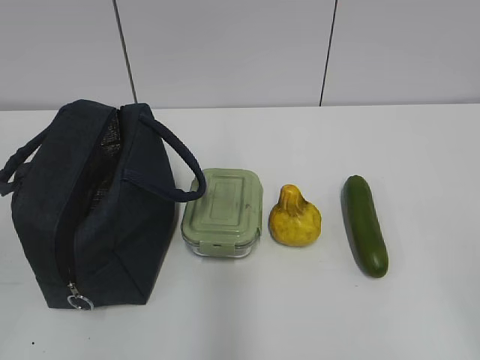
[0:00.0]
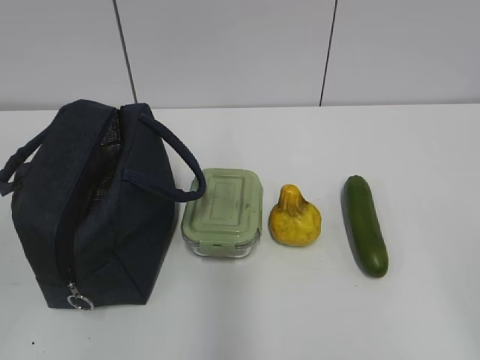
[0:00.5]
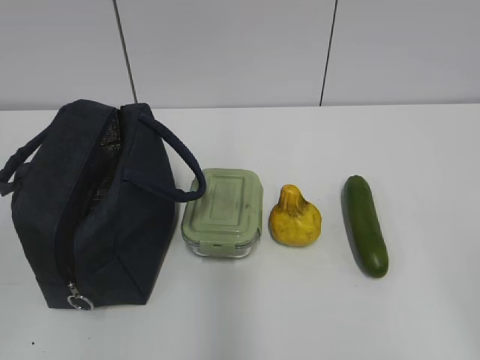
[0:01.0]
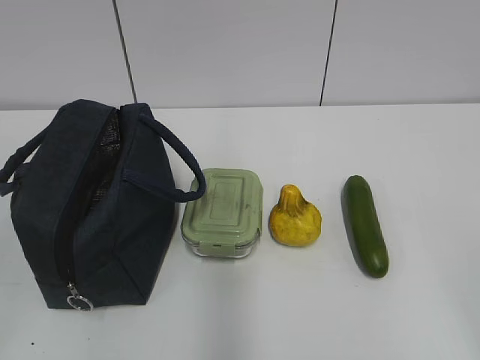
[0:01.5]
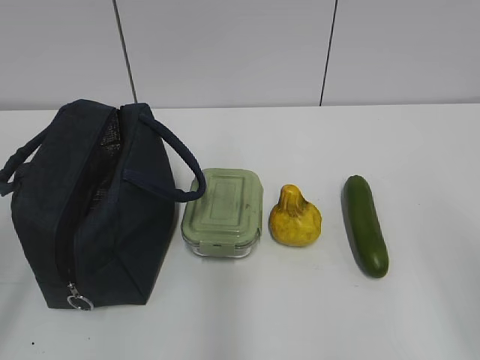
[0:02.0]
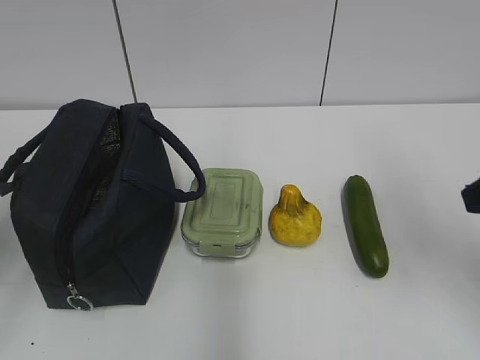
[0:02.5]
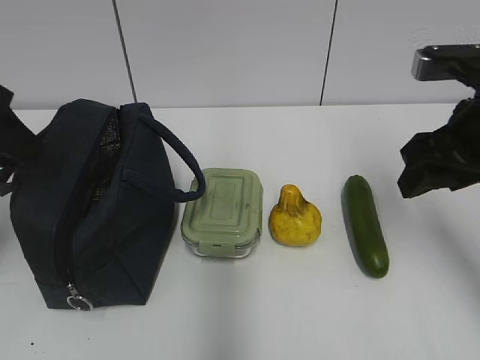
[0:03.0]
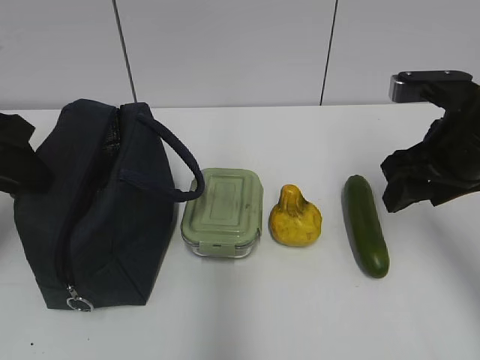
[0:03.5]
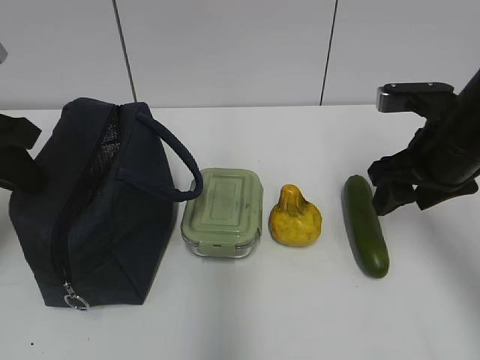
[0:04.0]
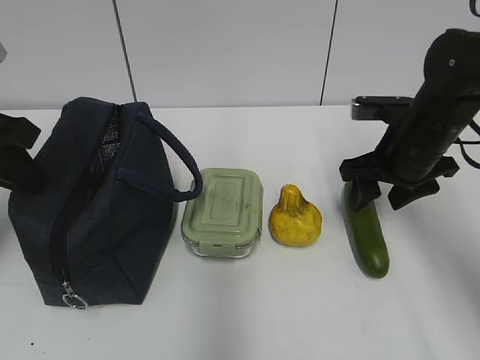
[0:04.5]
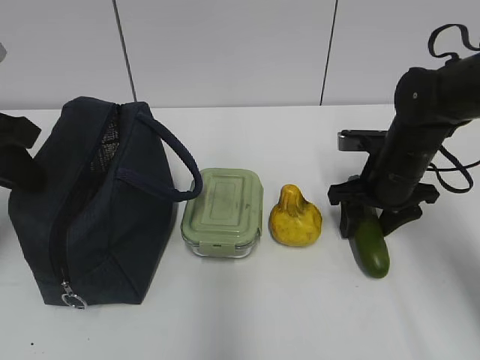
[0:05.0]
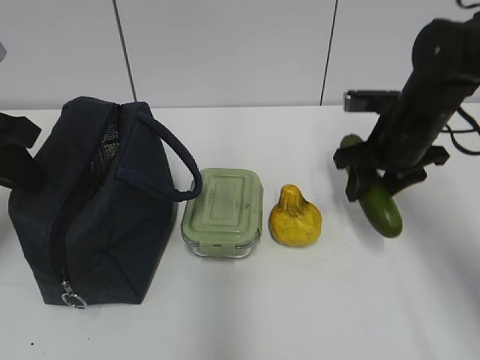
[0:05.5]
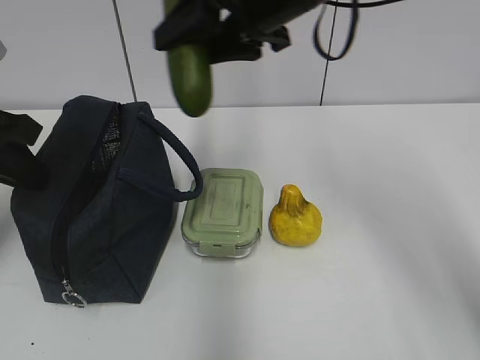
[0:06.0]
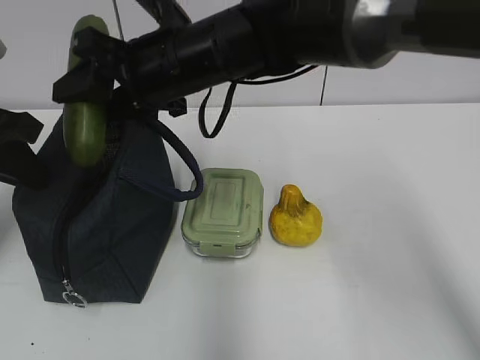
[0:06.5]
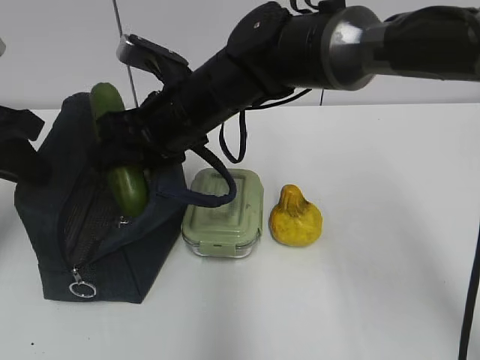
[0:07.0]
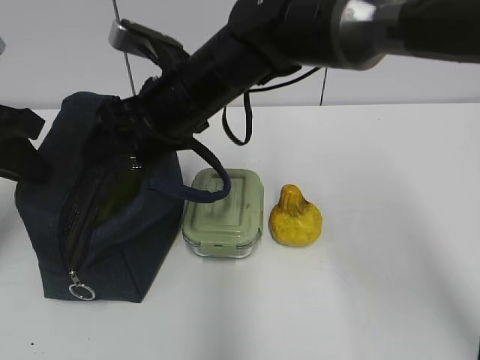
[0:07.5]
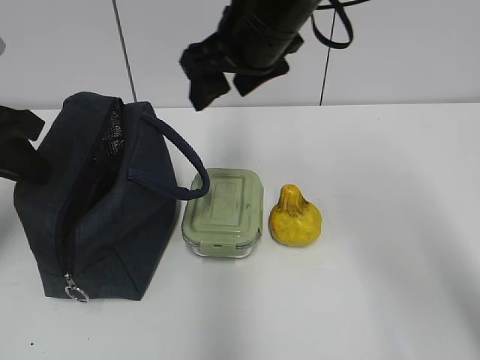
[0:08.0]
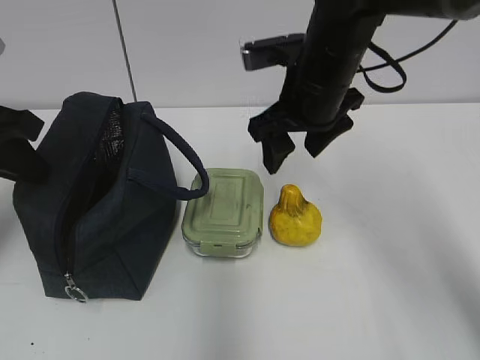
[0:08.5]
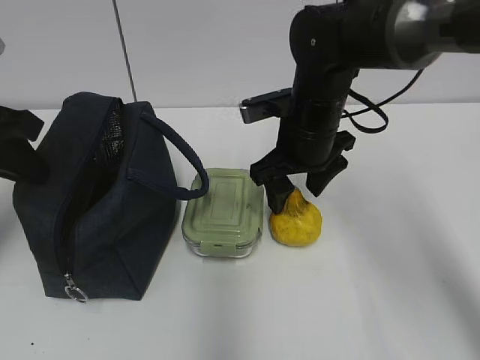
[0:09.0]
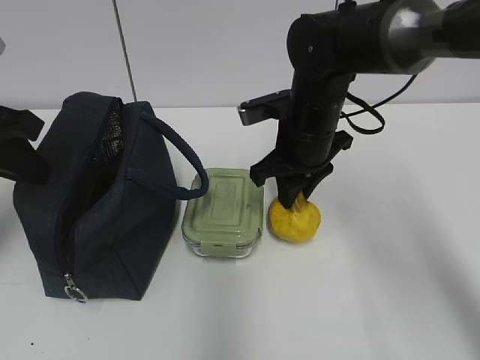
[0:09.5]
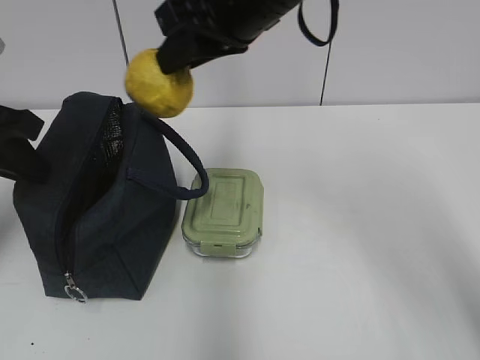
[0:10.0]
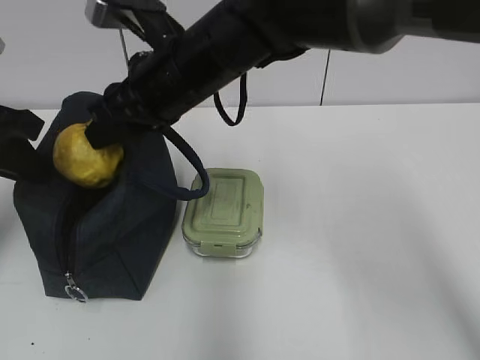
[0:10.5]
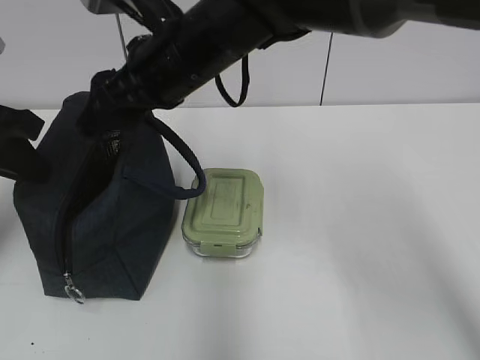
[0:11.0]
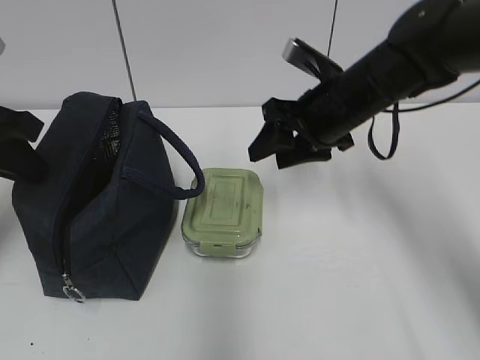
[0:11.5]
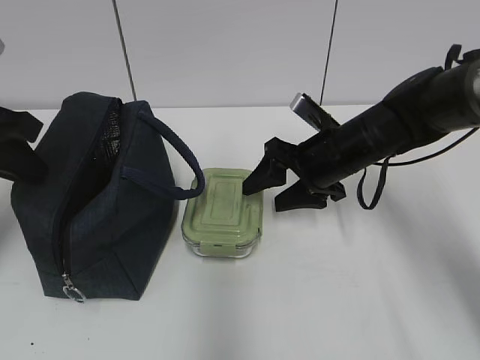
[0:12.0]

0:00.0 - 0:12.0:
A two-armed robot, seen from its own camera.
Step, 0:00.0 - 0:05.0: Grab the cucumber with your right hand.
Step, 0:07.0 - 0:07.5: Place it into the bag with your right hand.
Step, 0:08.0 - 0:09.0: Grab the pear with your right hand.
Step, 0:09.5 - 0:10.5: Place it into the bag with your right hand.
0:02.0 - 0:04.0: Both grippers travel together forward, approximately 25 cm. The left gripper closes up.
0:04.0 - 0:06.0: The right gripper heads to the left and upward, covering approximately 20 cm.
0:06.0 - 0:08.0: The right gripper goes downward and returns, some 10 cm each way.
0:08.0 - 0:10.0: The right gripper travels downward and back again, roughly 15 cm each way, and closes.
0:10.0 - 0:12.0: The right gripper is displaced downward and to the right by some 25 cm, and opens up.

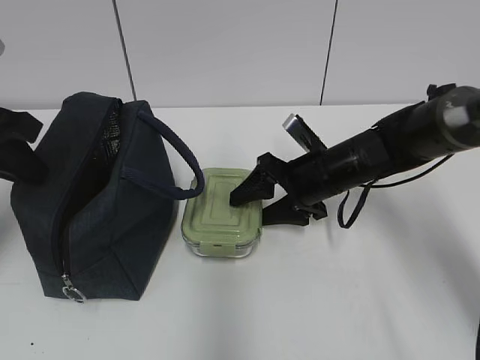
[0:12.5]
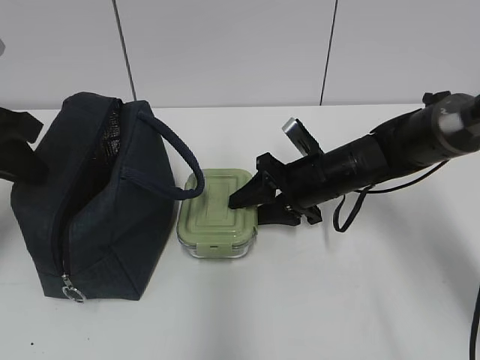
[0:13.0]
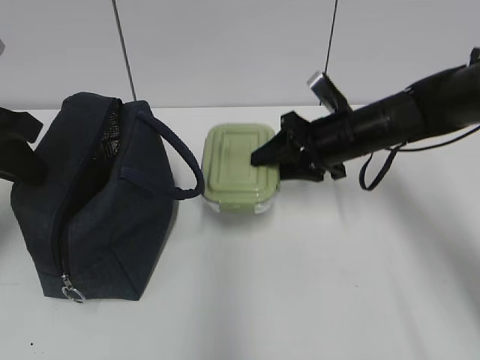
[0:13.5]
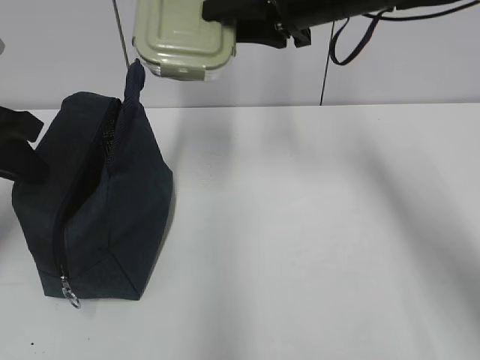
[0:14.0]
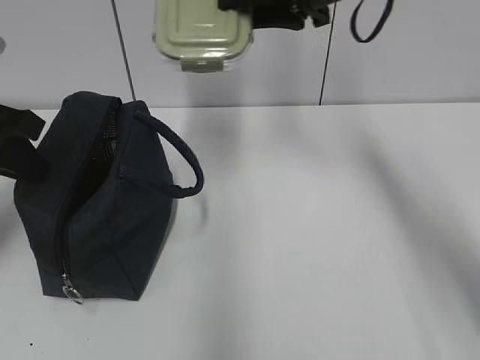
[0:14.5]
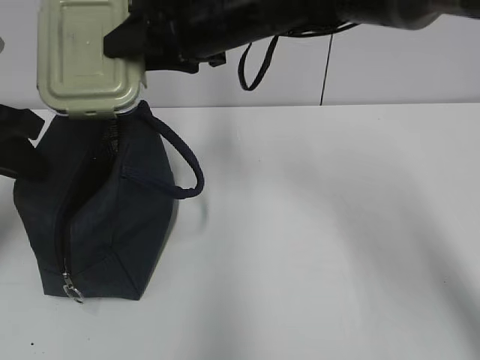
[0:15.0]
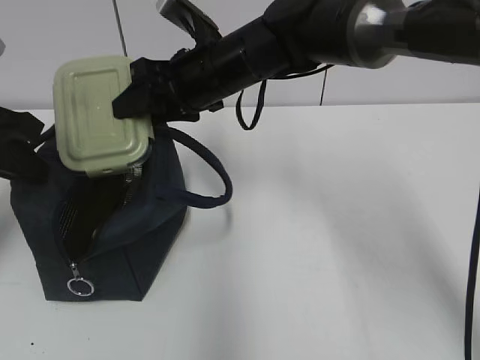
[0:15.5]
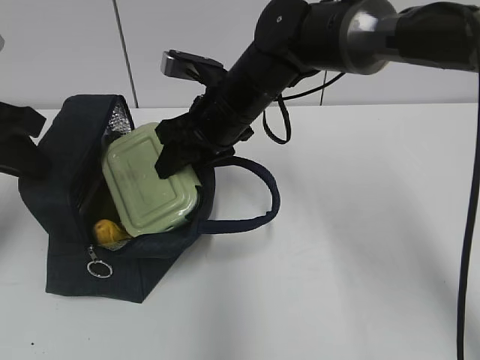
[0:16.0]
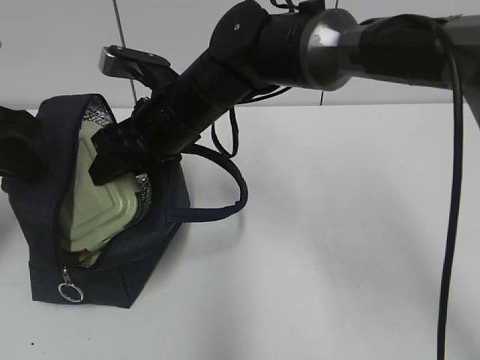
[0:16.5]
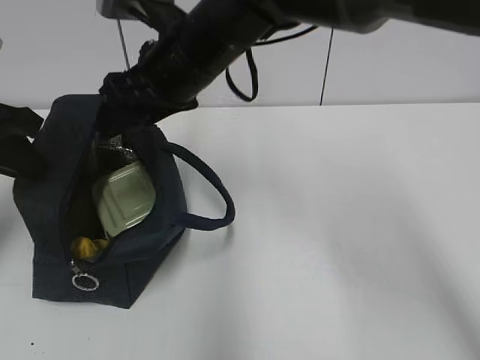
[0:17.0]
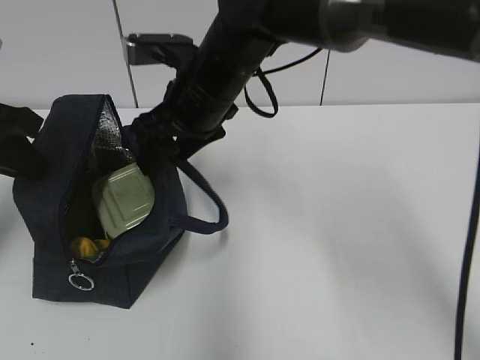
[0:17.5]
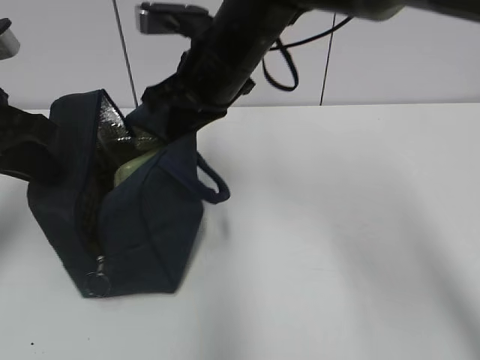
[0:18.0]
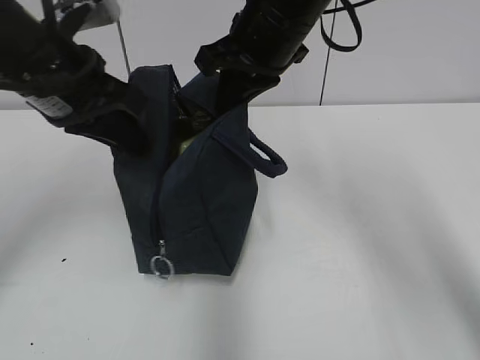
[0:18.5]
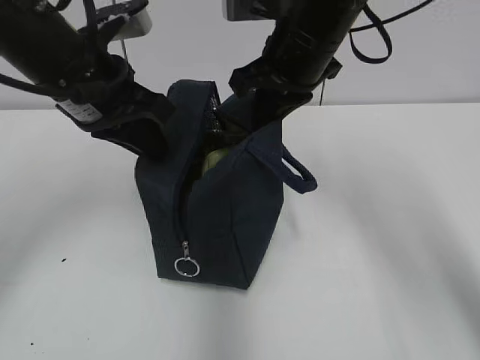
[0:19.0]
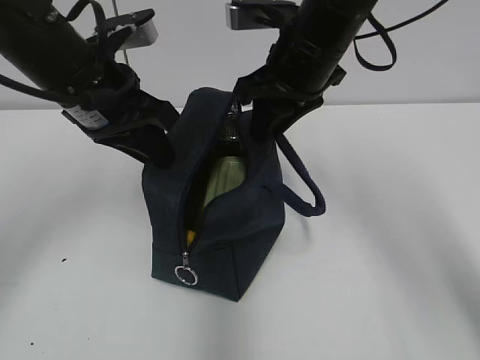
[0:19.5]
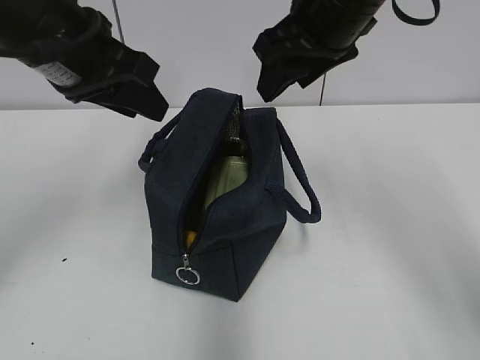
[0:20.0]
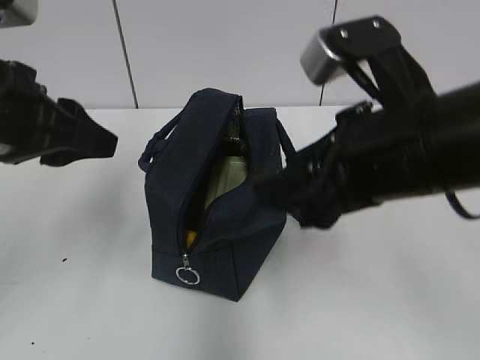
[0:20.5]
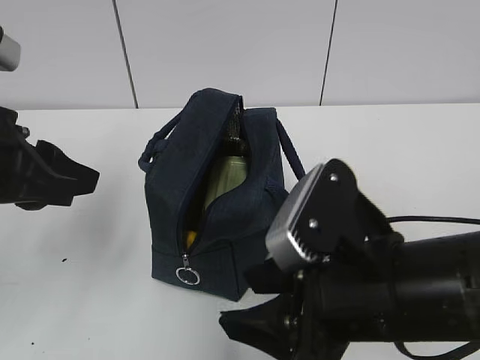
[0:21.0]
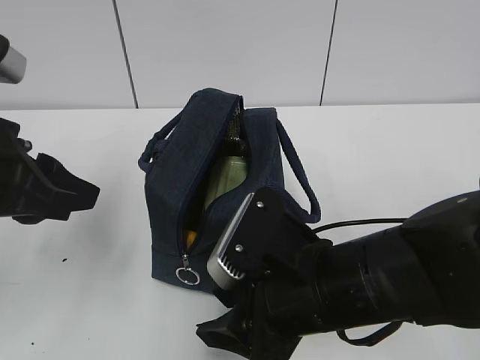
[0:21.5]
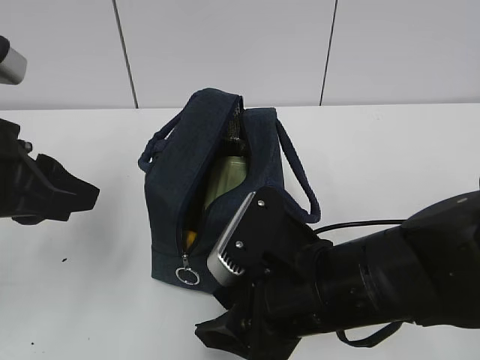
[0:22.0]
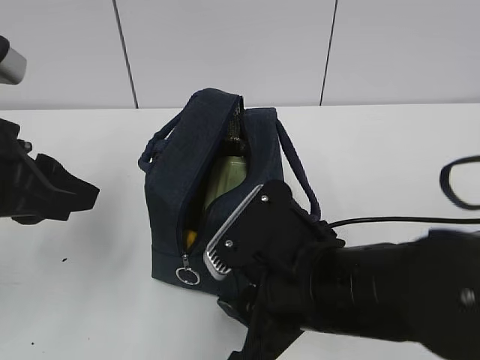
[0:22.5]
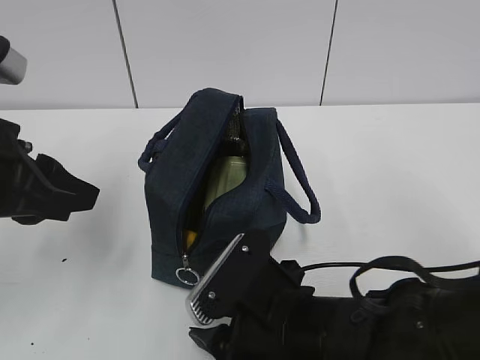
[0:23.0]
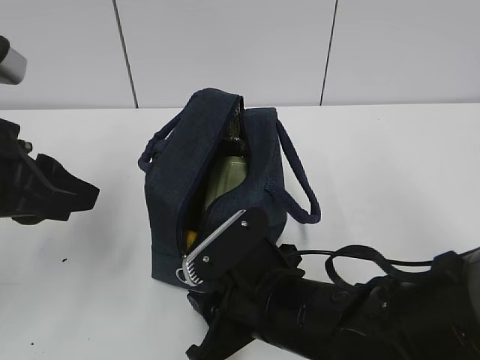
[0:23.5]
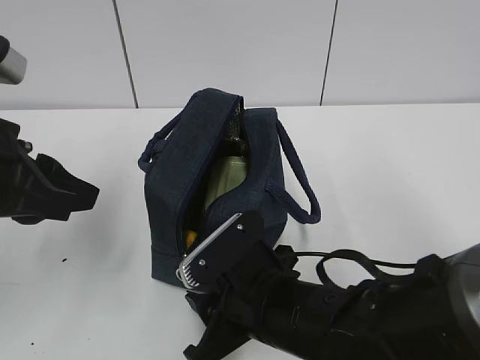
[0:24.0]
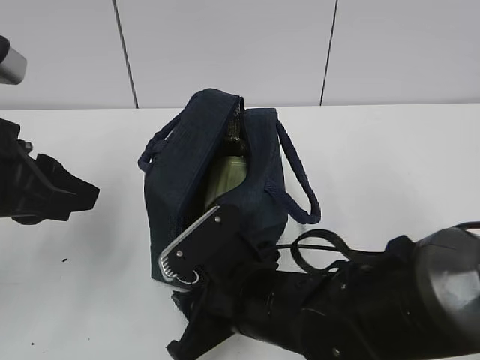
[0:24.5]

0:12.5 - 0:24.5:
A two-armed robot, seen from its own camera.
Step, 0:17.0 - 0:17.5: Grab the lunch bag with your right hand.
Step, 0:18.0 - 0:19.5: Move the lunch bag to the right.
0:12.5 - 0:14.5: The right gripper shifts some 25 cm upward, and closes up.
0:14.5 - 0:16.5: The right gripper shifts about 20 cm to the left and downward.
0:16.5 - 0:18.5: The right gripper shifts some 15 cm to the right and upward, and closes its fingers. Meanwhile the left gripper moves to the right, approximately 10 cm.
0:18.5 - 0:20.5: The left gripper travels backward by approximately 5 cm, and opens. Meanwhile the right gripper heads backward, covering some 15 cm, and opens up.
0:20.5 - 0:22.5: The right gripper travels downward and to the left by roughly 10 cm.
0:22.5 - 0:24.5: The right gripper goes some 5 cm downward.

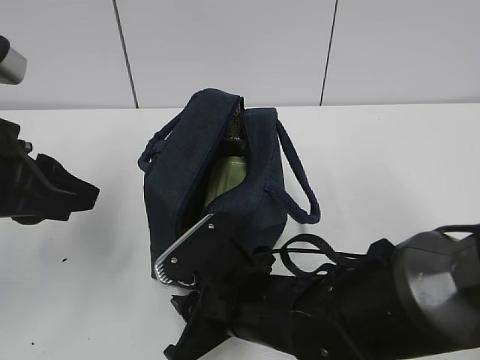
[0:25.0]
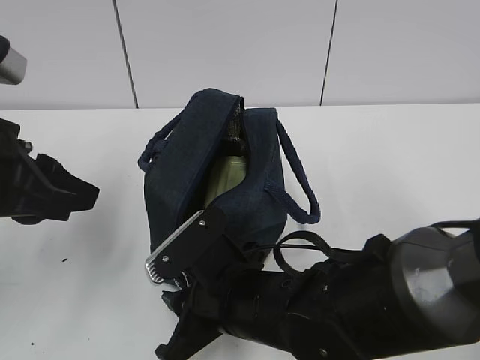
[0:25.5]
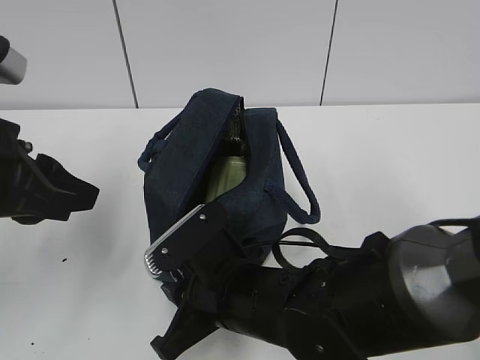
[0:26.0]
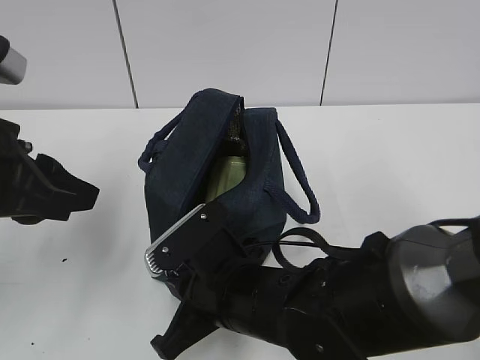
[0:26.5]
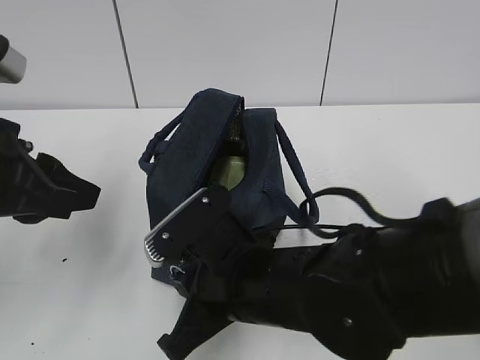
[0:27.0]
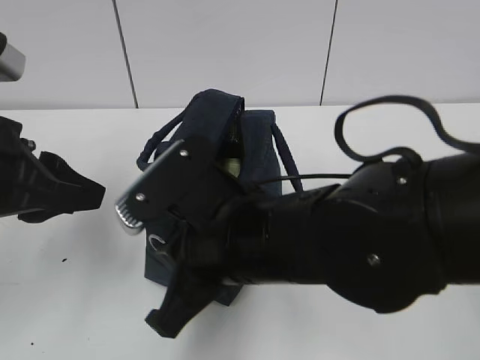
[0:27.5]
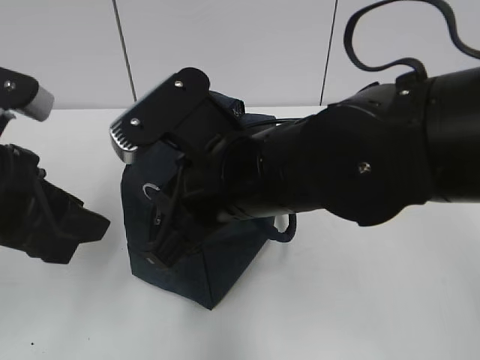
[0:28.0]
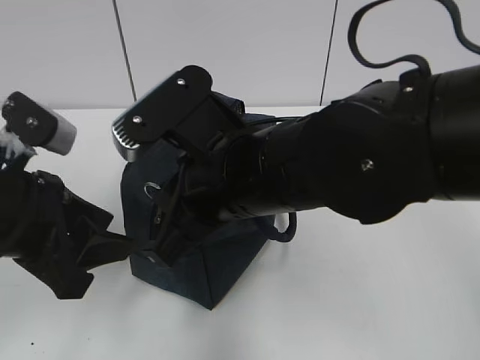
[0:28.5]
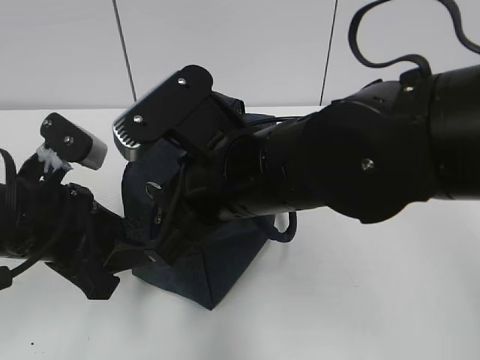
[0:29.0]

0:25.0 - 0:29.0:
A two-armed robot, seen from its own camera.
0:25.0 - 0:27.0: The right gripper closes up.
0:27.0 - 0:29.0: The left gripper moves downward, some 10 cm. Meanwhile the right gripper moves upward, some 10 cm.
